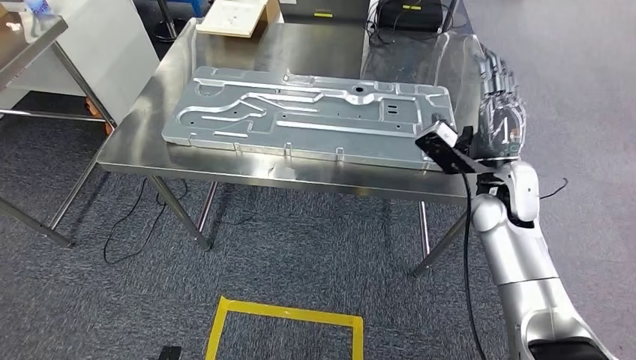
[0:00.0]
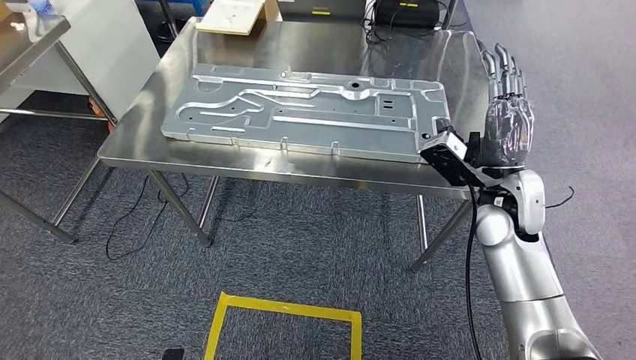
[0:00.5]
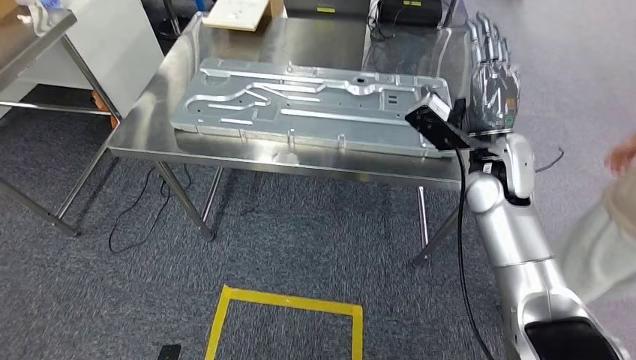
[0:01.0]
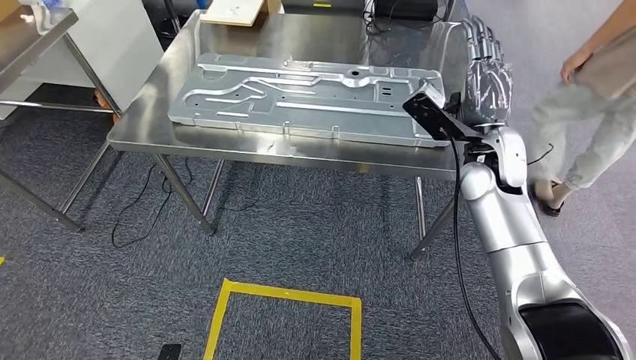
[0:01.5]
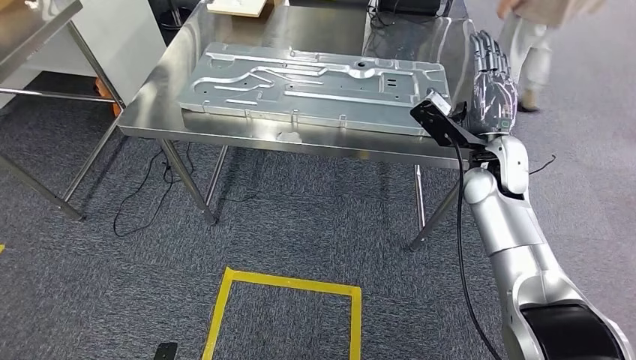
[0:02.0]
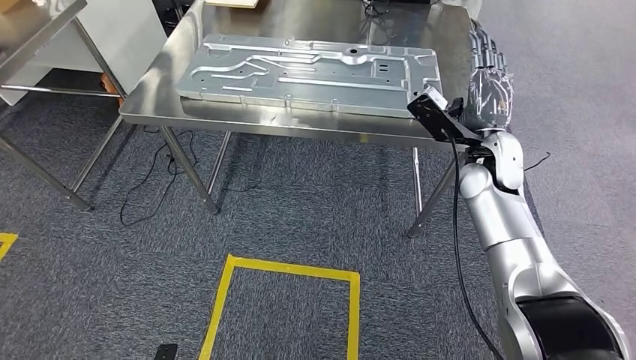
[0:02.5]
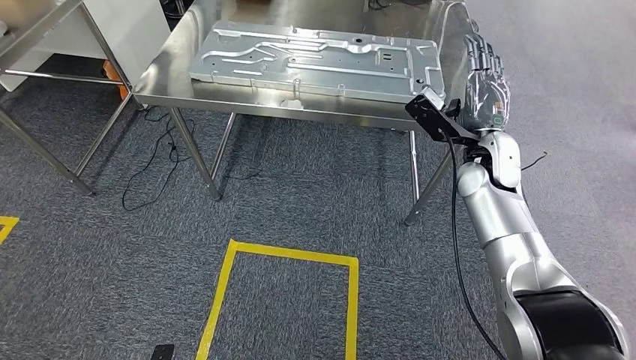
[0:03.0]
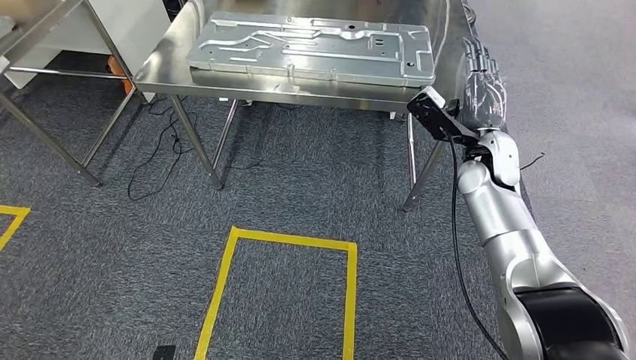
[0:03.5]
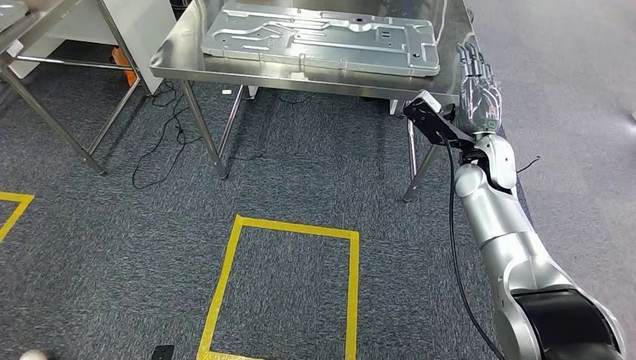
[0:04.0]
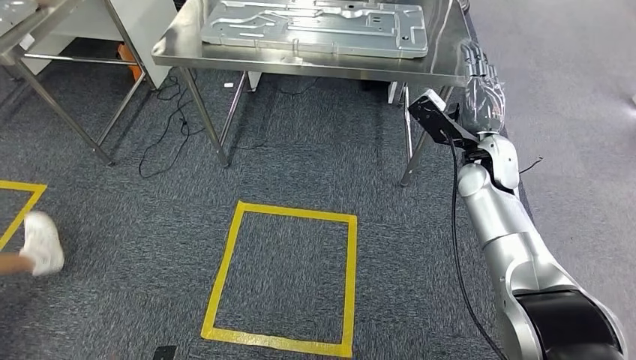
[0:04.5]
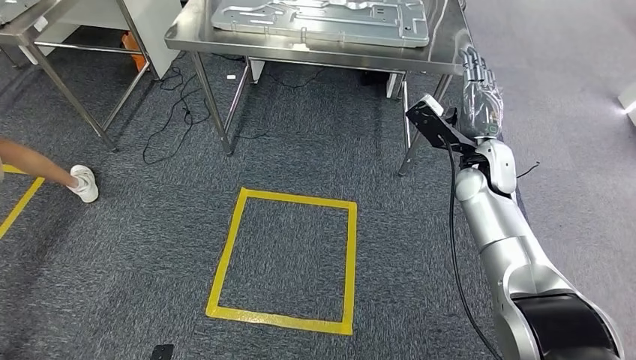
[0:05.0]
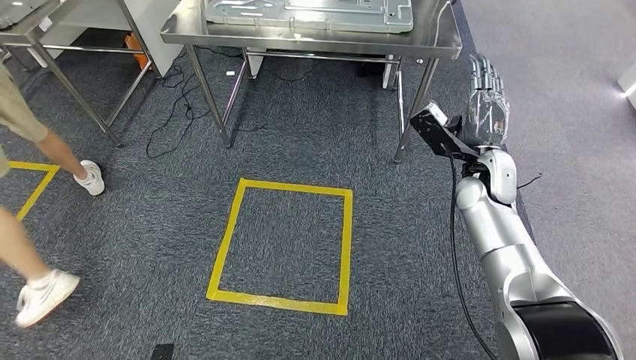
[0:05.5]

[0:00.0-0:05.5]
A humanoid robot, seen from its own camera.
Step, 0:00.0 to 0:05.5: Move to the initial position of the shelf.
